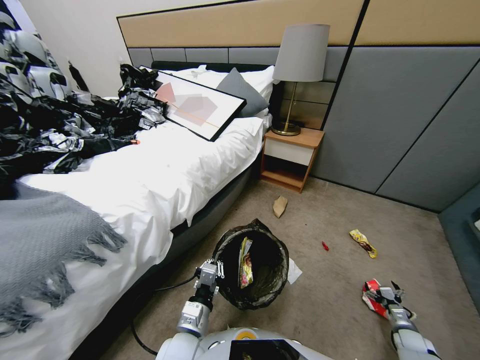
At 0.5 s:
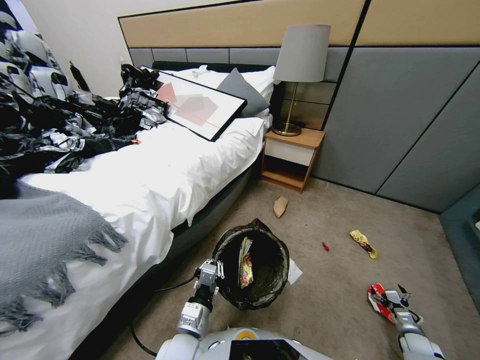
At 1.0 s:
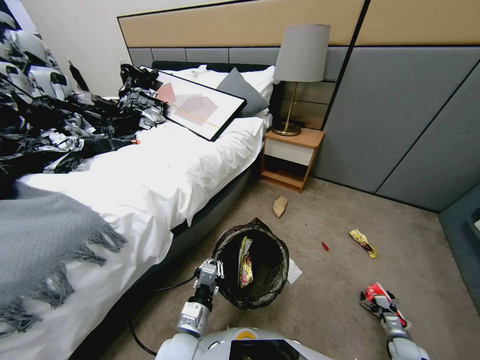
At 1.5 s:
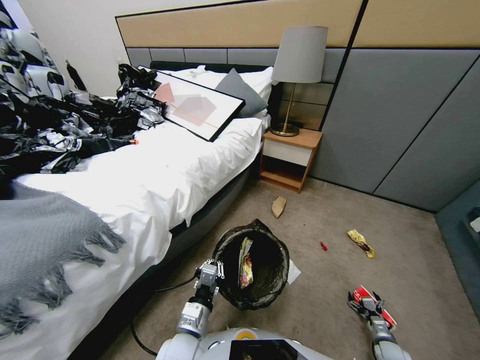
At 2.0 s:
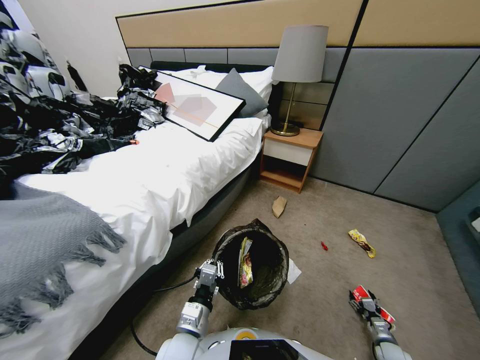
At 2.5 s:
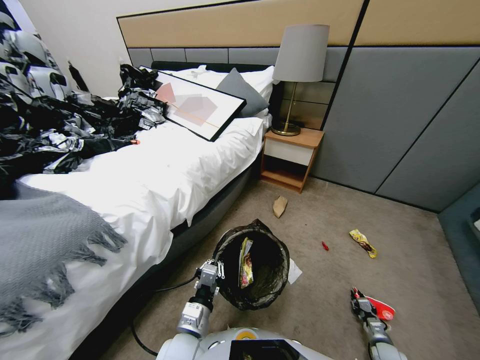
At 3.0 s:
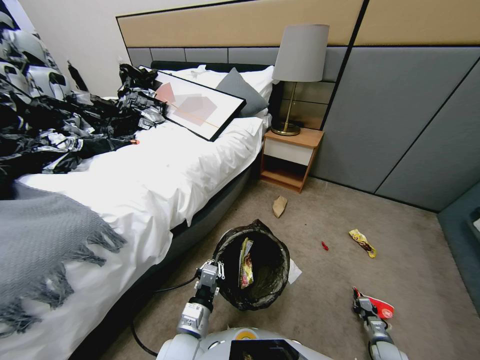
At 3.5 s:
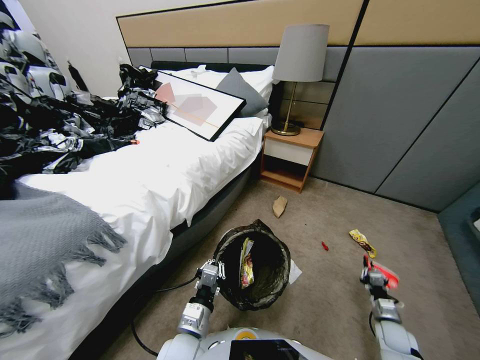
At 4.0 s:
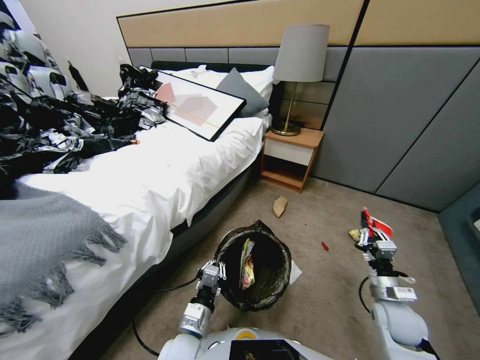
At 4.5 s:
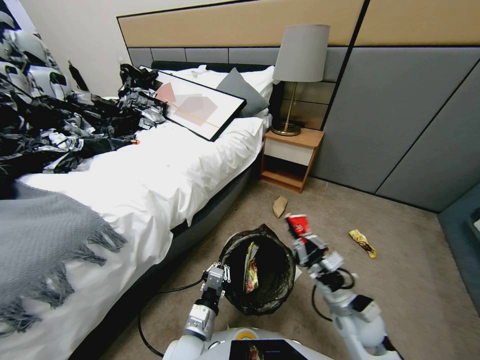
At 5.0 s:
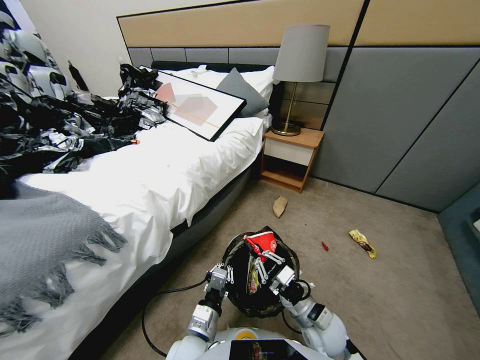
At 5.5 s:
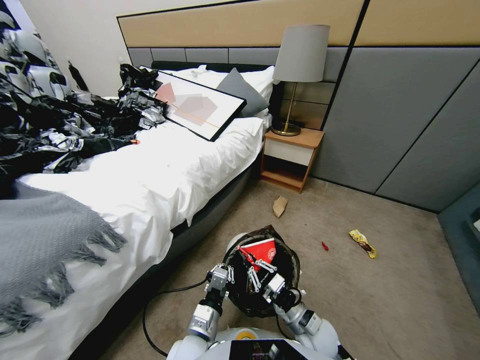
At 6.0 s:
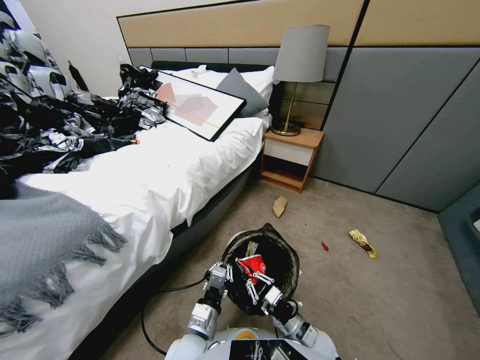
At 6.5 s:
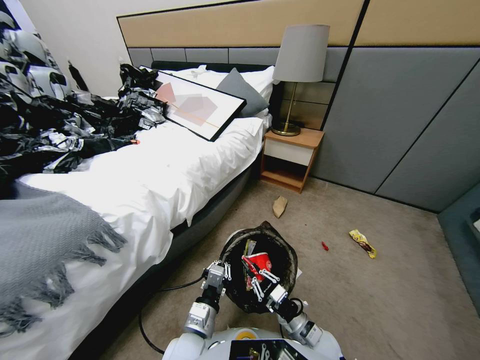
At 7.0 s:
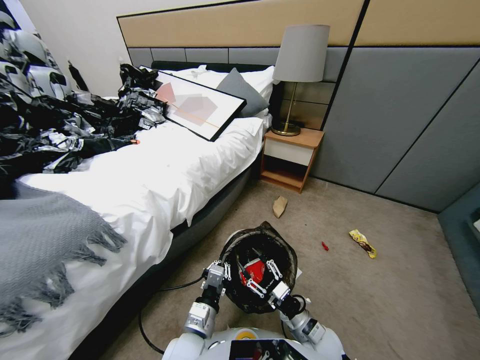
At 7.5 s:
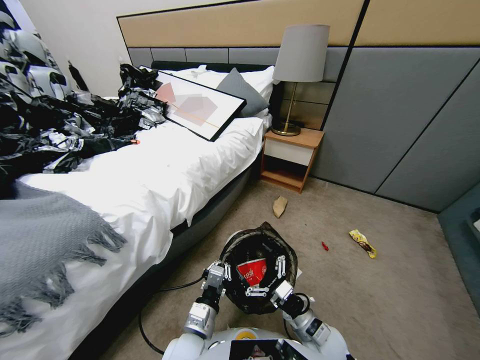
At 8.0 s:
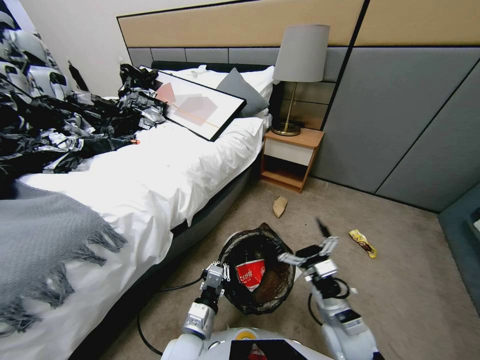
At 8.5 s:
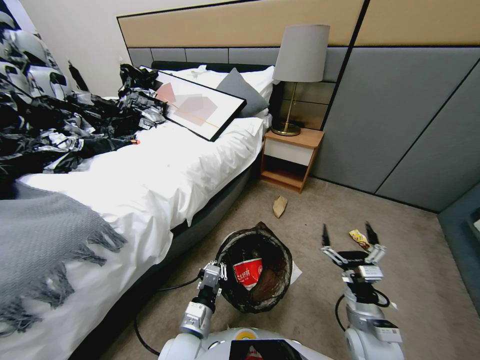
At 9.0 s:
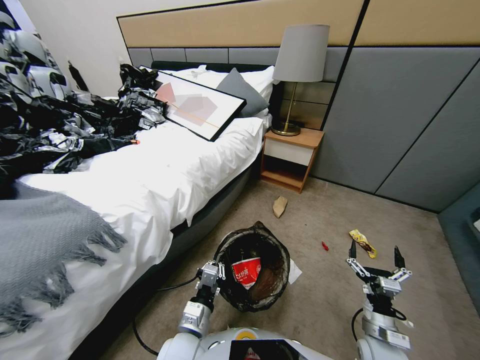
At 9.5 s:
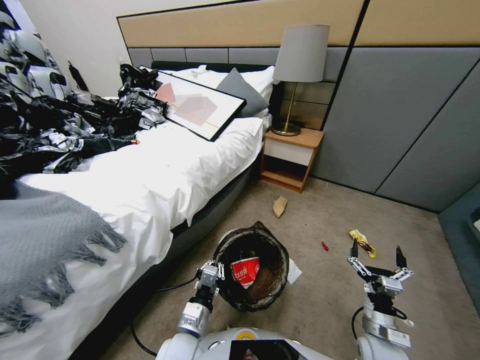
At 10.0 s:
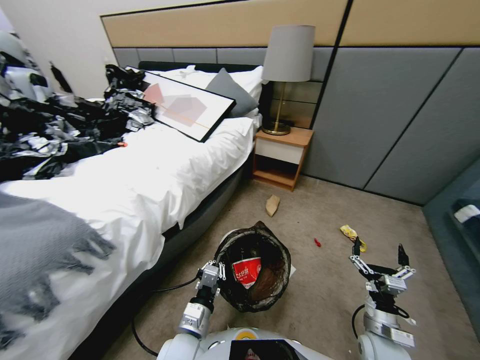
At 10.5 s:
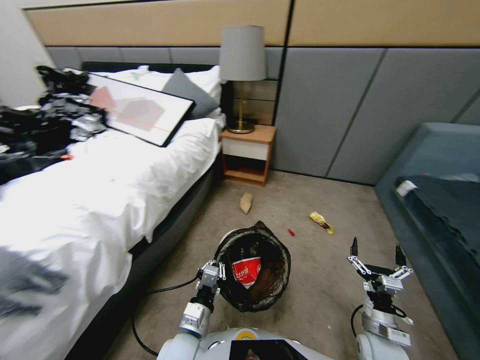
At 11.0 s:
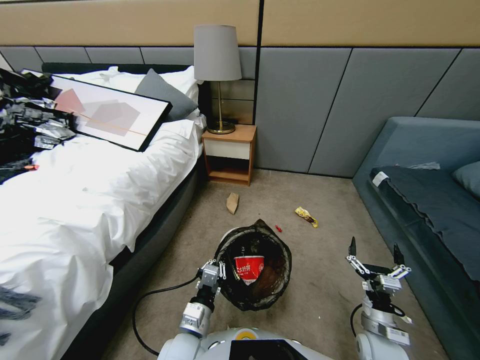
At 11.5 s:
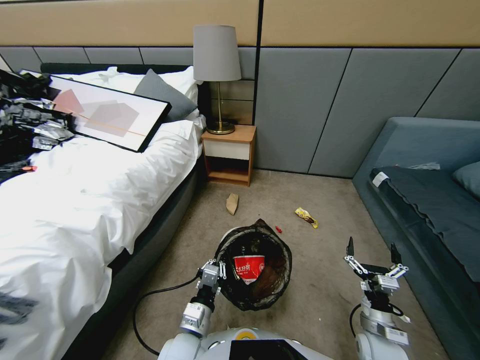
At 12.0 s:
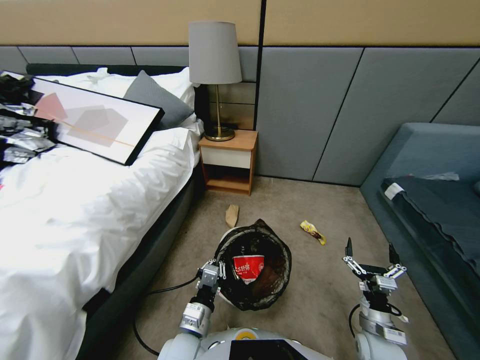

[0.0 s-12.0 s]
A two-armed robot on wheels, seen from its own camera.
Task of the whole recording: Pick up the trash bin, then pick up the garbage from the floor and place it into the trash bin.
0.0 to 2.0 s: The right gripper goes about 10 cm to the left and downward, and closes up.
2.0 to 4.0 s: The right gripper travels upward and to the left by roughly 35 cm, and closes its fingers.
4.0 to 6.0 s: The right gripper travels to the left and downward by some 20 cm.
6.0 to 8.0 s: The right gripper moves upward and to the right, some 10 cm, and opens.
8.0 to 10.0 s: The right gripper heads to the right and downward, covering approximately 10 cm.

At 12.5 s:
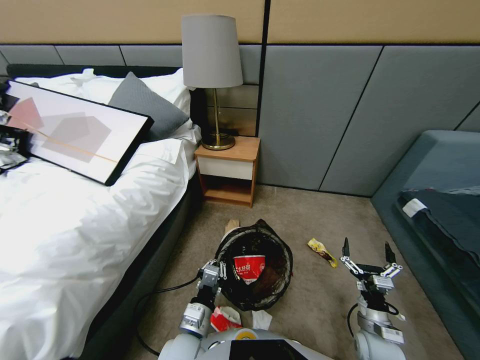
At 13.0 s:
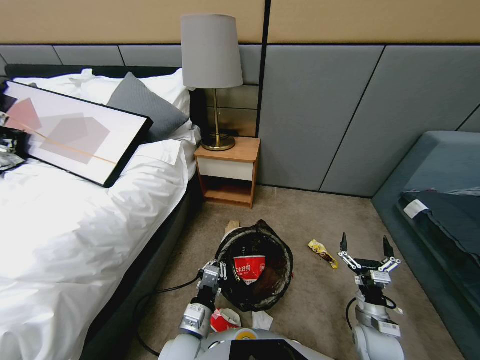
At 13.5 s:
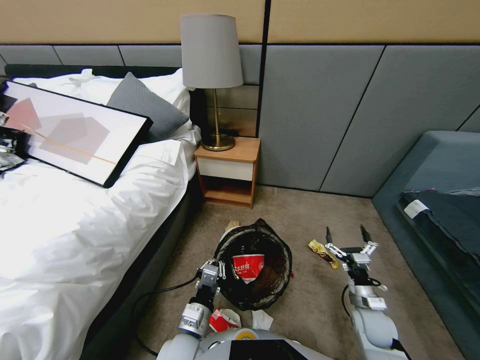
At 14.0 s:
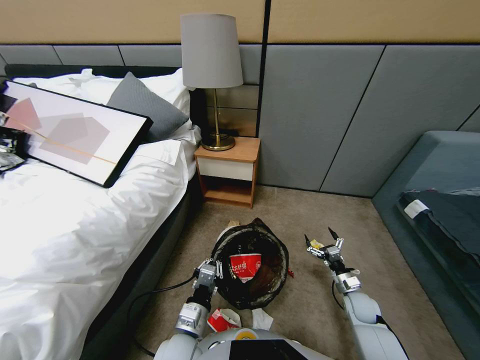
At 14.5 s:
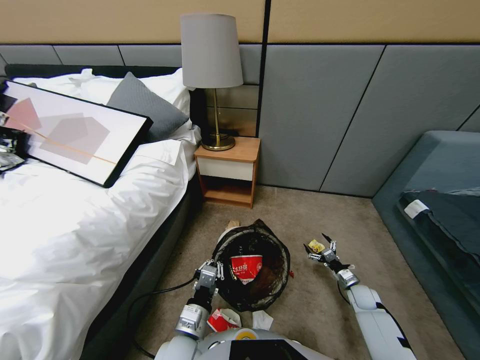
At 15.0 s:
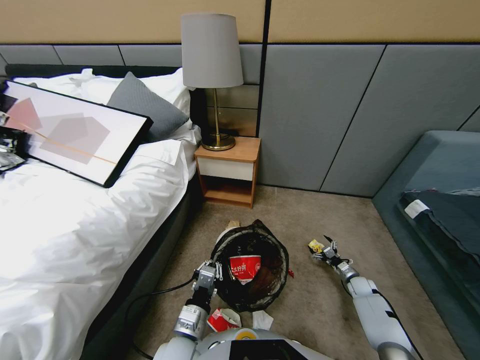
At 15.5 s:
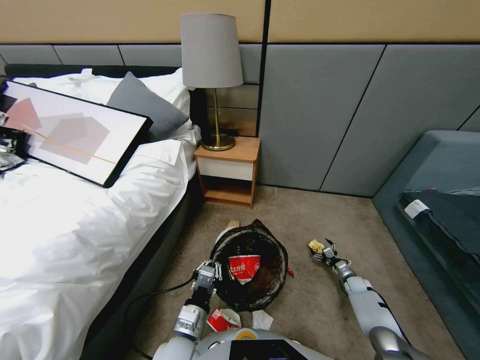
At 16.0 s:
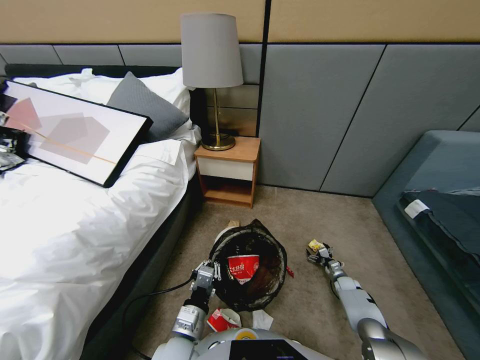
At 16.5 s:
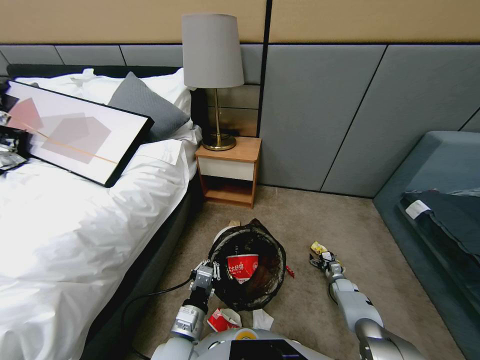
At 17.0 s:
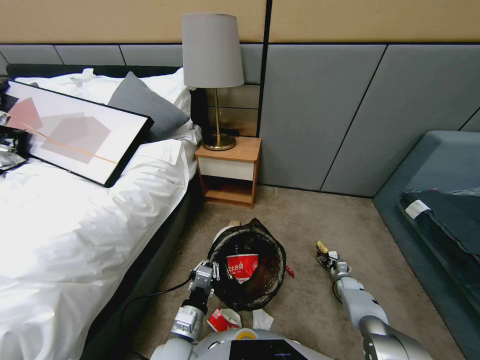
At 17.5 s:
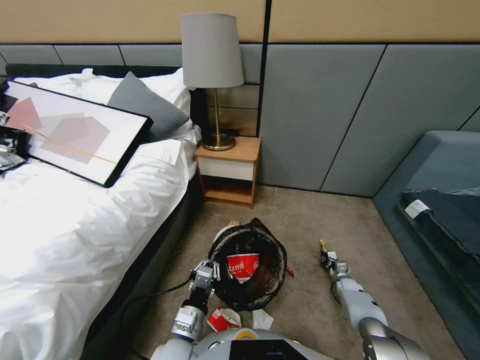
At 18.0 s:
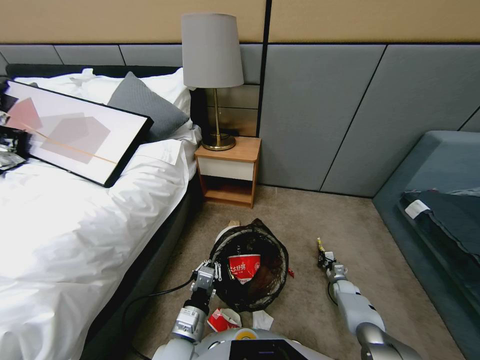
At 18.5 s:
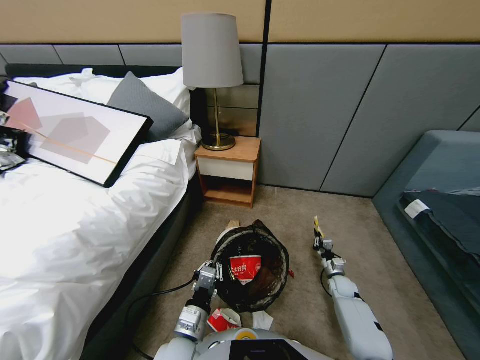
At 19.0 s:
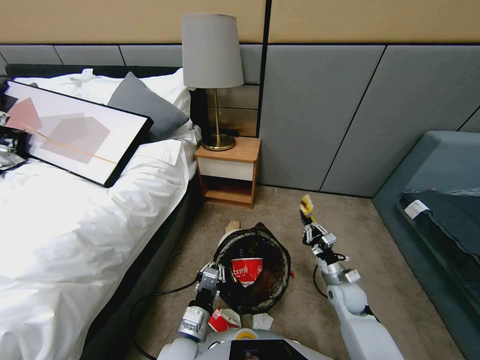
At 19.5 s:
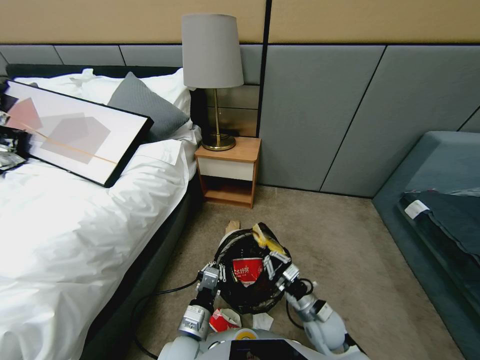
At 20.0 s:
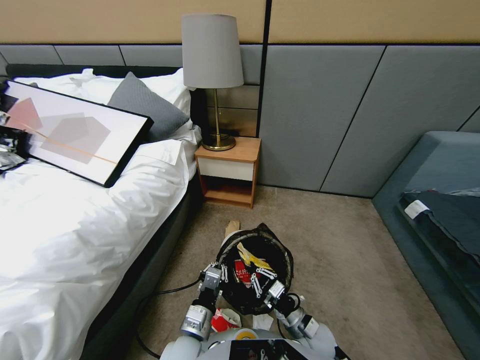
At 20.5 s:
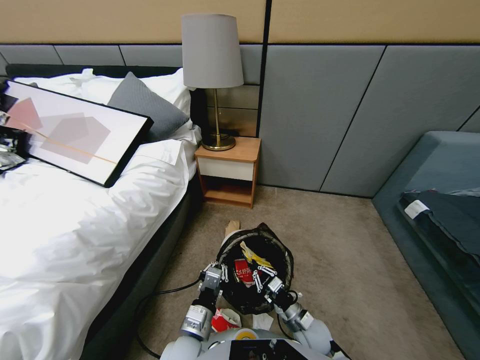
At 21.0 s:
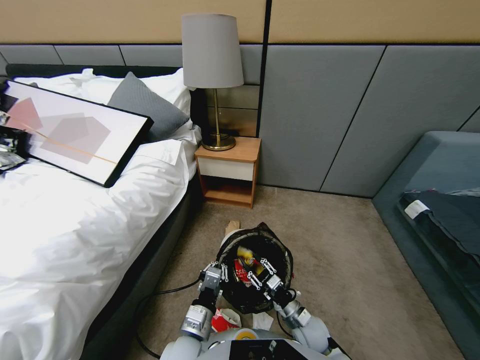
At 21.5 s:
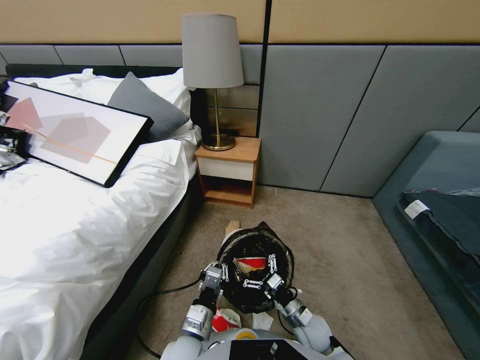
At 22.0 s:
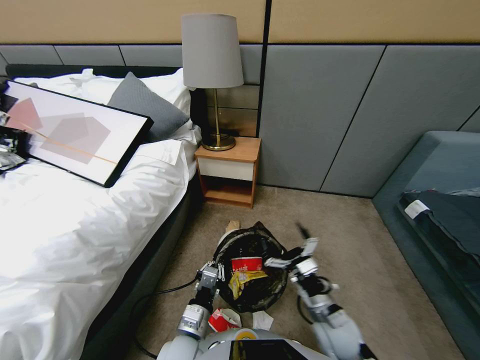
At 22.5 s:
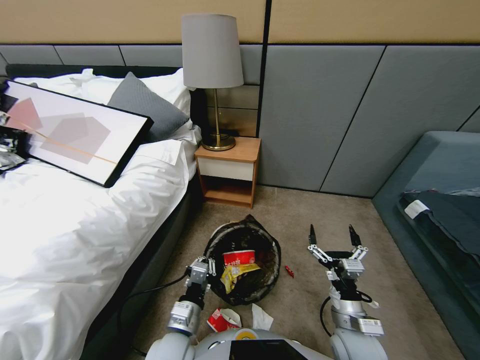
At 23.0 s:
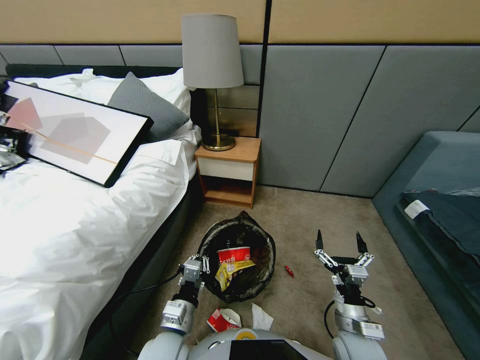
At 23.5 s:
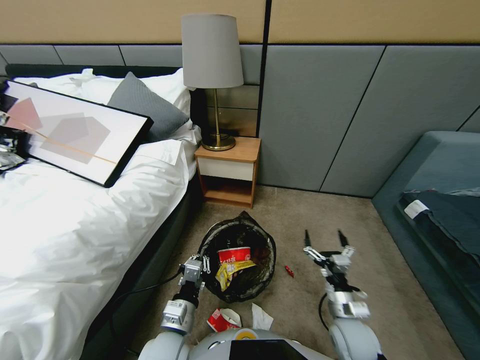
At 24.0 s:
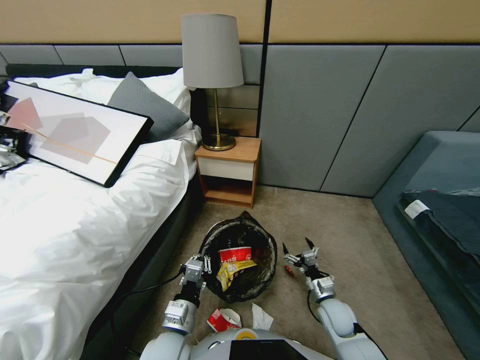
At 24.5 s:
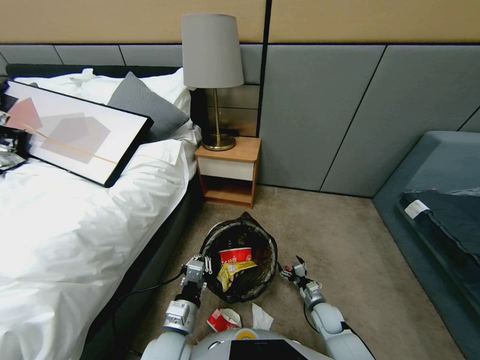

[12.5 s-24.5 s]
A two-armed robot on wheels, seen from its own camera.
Task of the whole recording: Pick up the trash bin, then pick up the garbage from the floor and place it into the trash bin.
12.5 to 14.5 s: The right gripper goes some 25 cm forward, to the right and downward.
14.5 to 16.5 s: The right gripper heads downward, covering roughly 10 cm.
16.5 to 18.5 s: The right gripper goes about 15 cm upward and to the left, and closes up.
18.5 to 20.5 s: The right gripper is displaced to the left and backward by approximately 25 cm.
20.5 to 22.5 s: The right gripper moves upward and to the right, roughly 15 cm, and opens up.
22.5 to 24.5 s: The right gripper is displaced downward and forward by roughly 20 cm.

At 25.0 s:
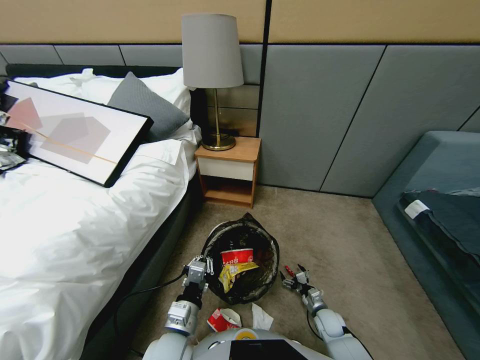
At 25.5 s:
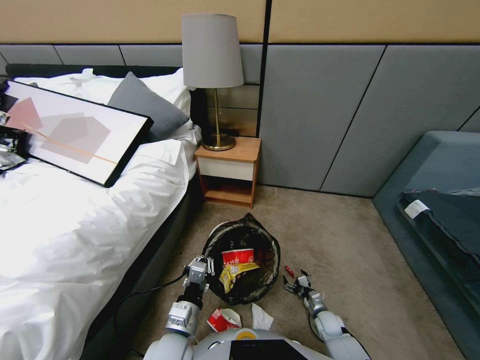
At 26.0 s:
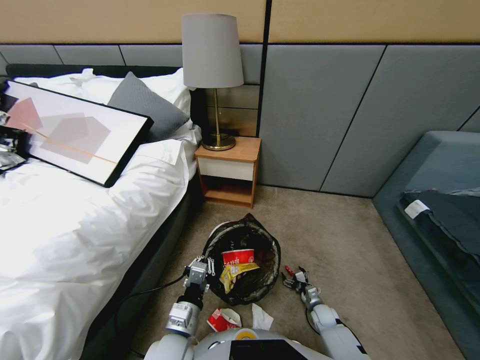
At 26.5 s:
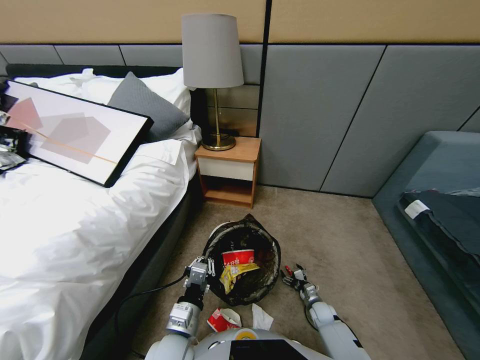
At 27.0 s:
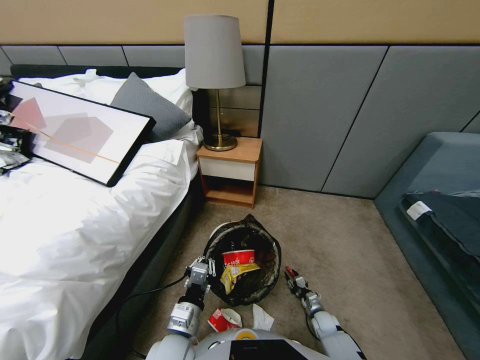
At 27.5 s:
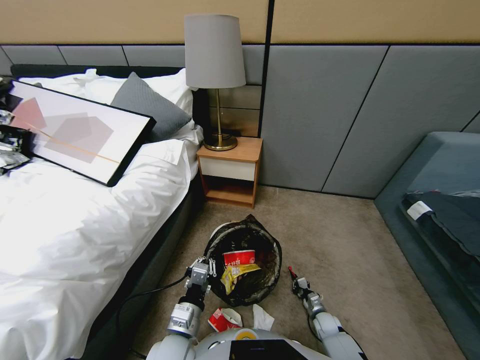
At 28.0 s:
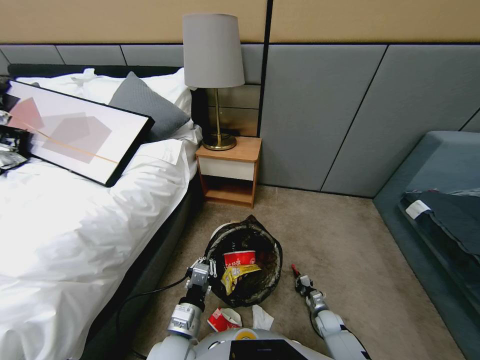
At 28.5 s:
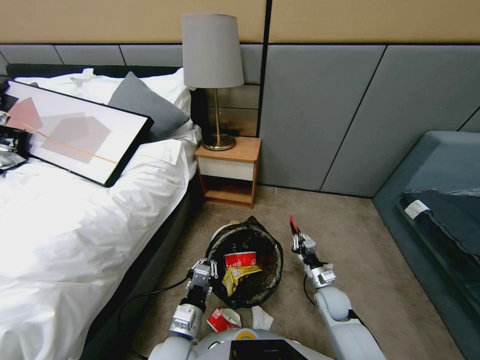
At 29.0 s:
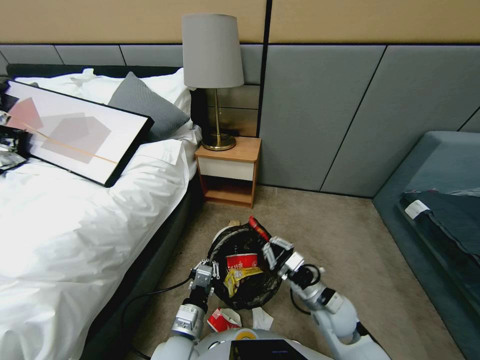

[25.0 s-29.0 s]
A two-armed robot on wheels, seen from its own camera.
Task of the whole recording: Pick up the trash bin, then pick up the garbage from the floor and place it into the trash bin.
25.0 to 27.0 s: The right gripper shifts roughly 5 cm downward, and closes its fingers.
27.0 to 29.0 s: The right gripper travels upward and to the left by some 30 cm.
